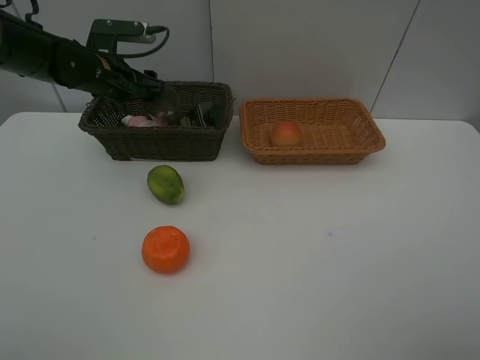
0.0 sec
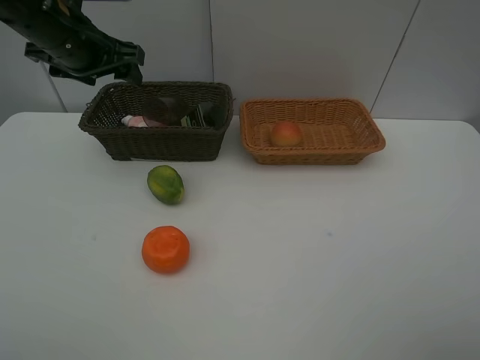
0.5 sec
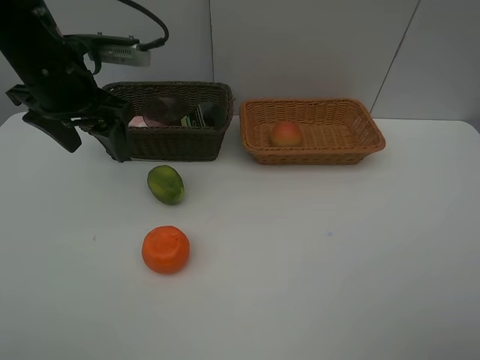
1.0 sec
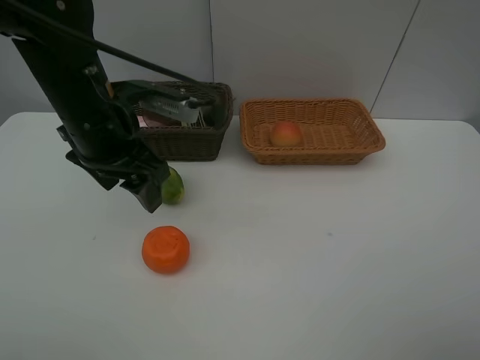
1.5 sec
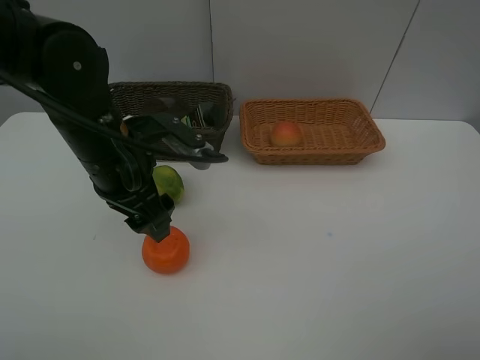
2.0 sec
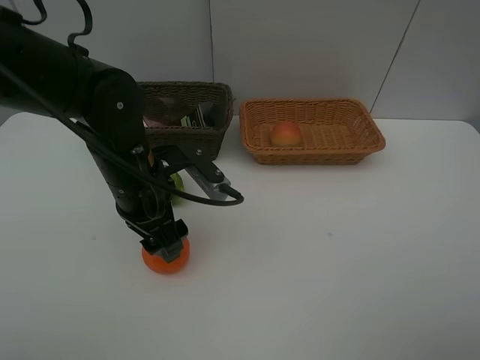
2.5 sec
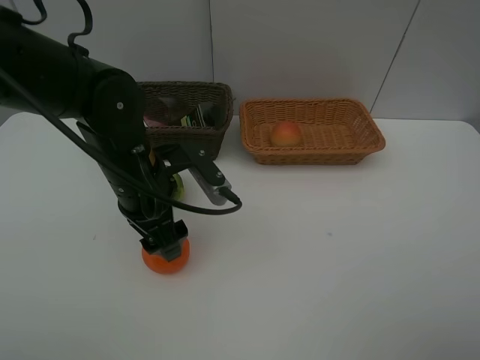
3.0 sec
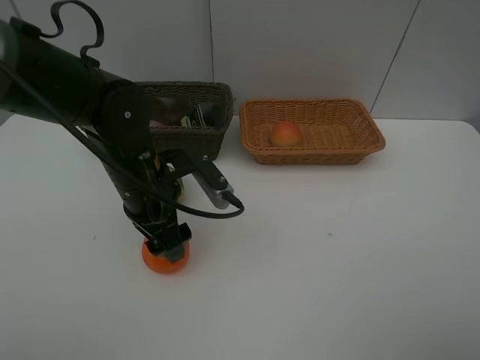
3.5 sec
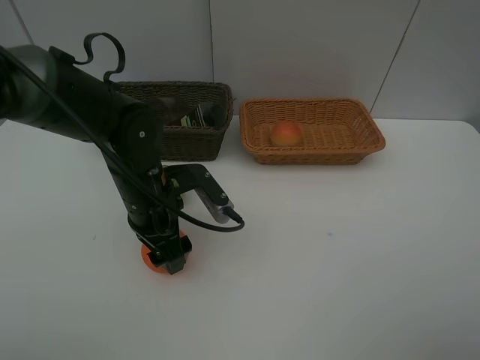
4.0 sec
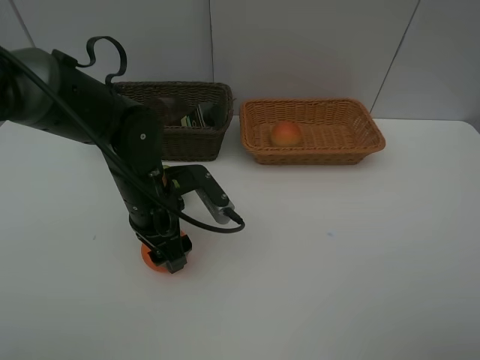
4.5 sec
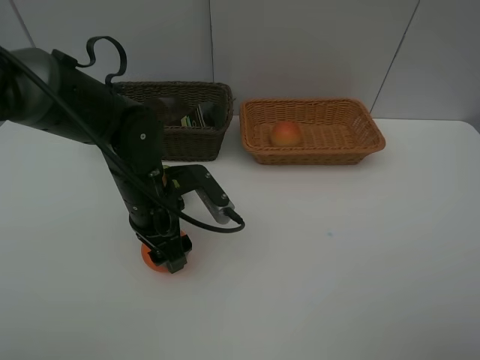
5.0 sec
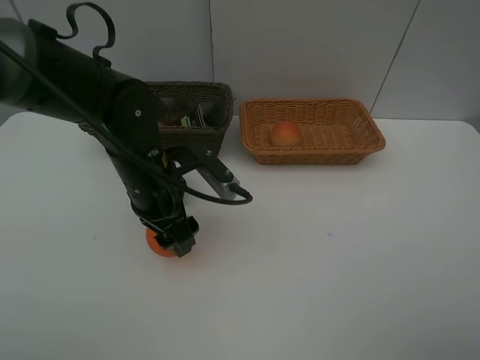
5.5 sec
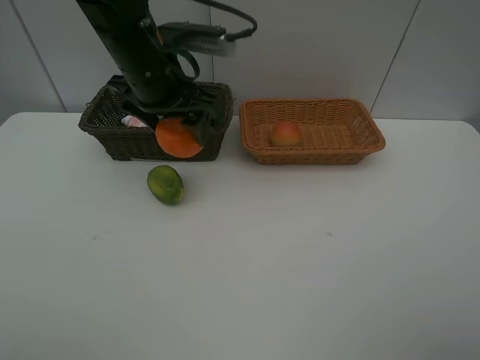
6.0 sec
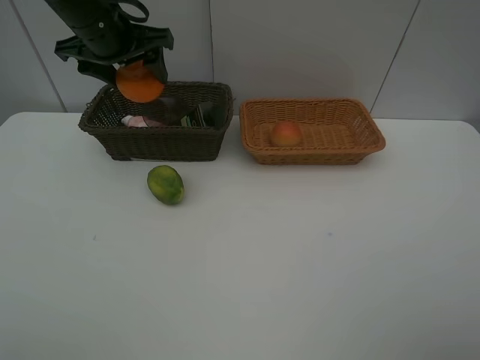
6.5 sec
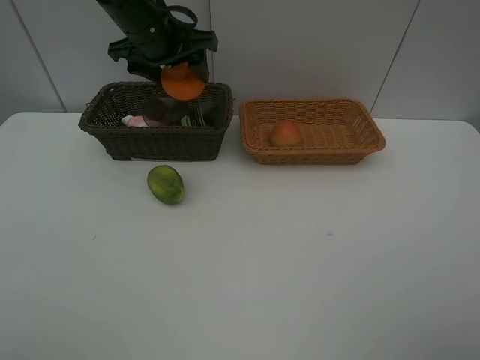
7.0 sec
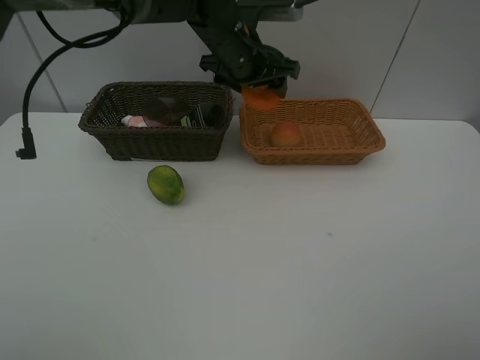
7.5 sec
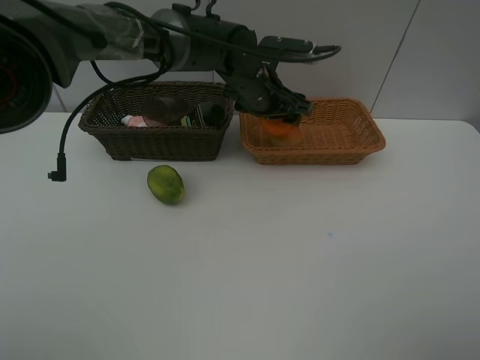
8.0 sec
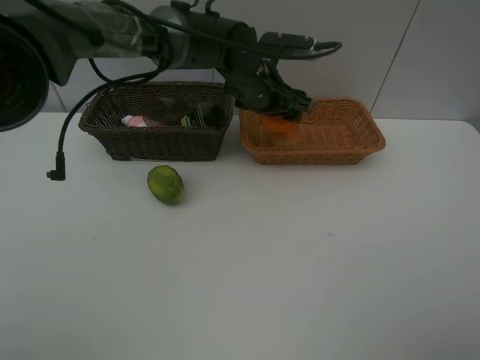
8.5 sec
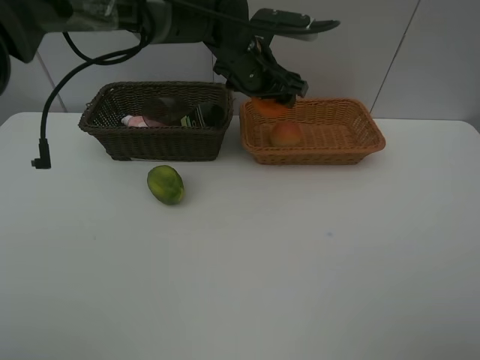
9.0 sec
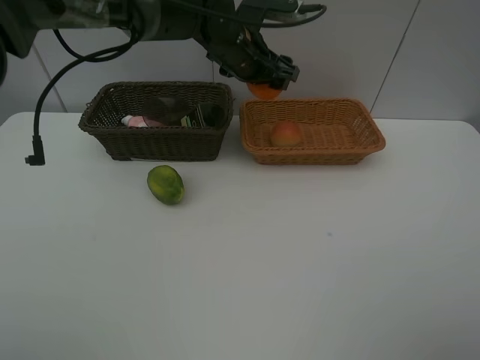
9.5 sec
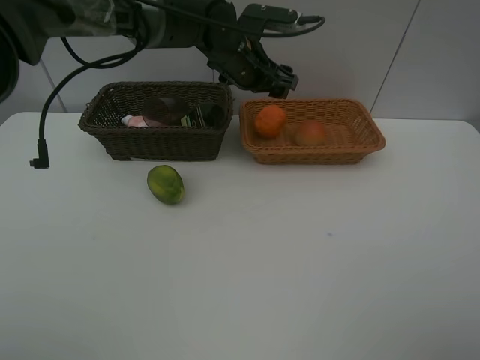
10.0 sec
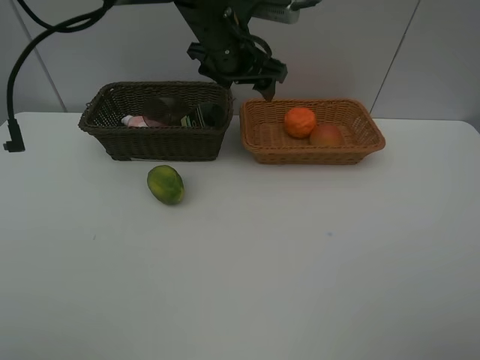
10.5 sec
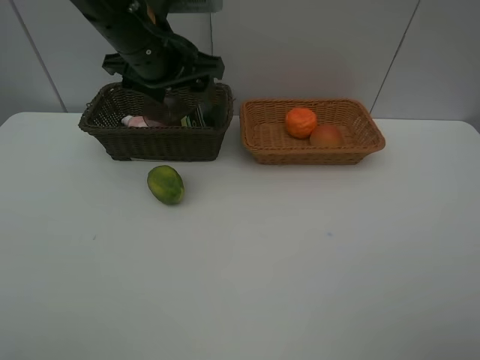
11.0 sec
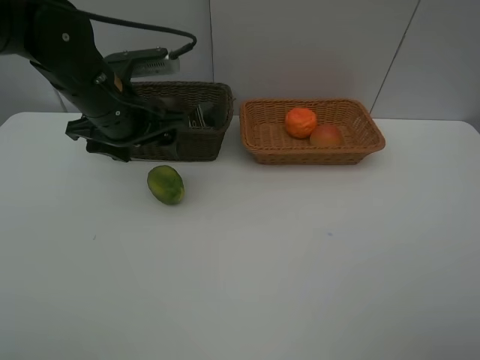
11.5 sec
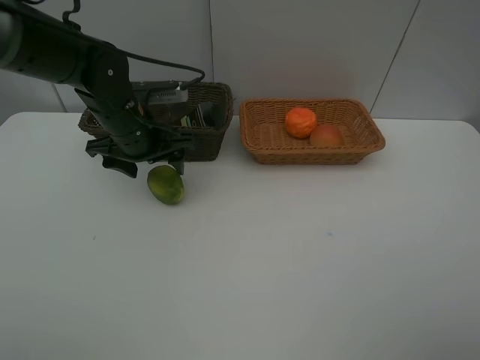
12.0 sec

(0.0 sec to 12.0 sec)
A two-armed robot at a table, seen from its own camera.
Task of the whole recording: place multiple objects separately in different baskets.
0.0 sec - 2.0 sec: The left gripper moves backward and to the right, roughly 20 cm.
2.0 sec - 4.0 sec: The left gripper moves downward, approximately 5 cm.
4.0 sec - 6.0 sec: The left gripper travels upward and forward by approximately 15 cm.
6.0 sec - 8.0 sec: The left gripper heads to the right, downward and forward, covering roughly 20 cm.
8.0 sec - 10.0 sec: The grippers move only a little.
10.0 sec - 12.0 sec: The left gripper travels to the left and backward by roughly 15 cm.

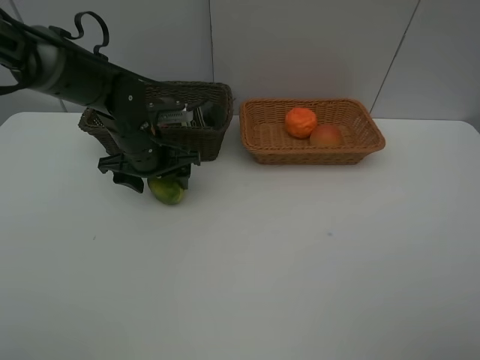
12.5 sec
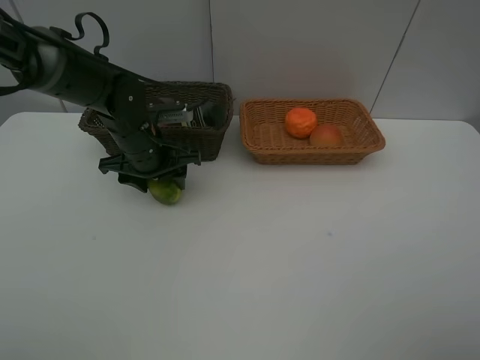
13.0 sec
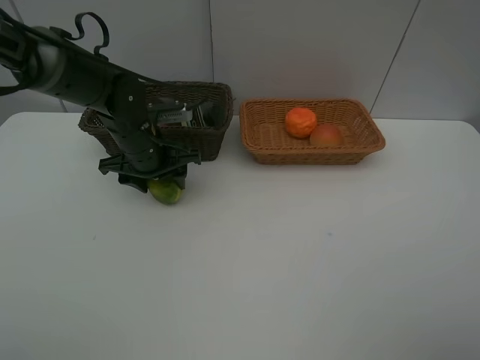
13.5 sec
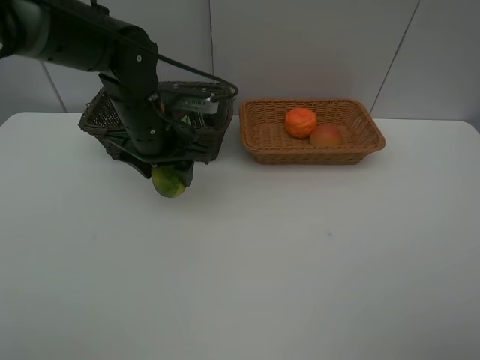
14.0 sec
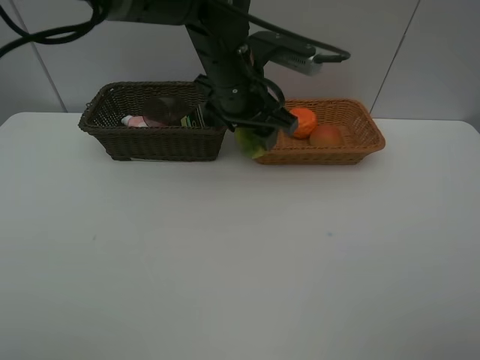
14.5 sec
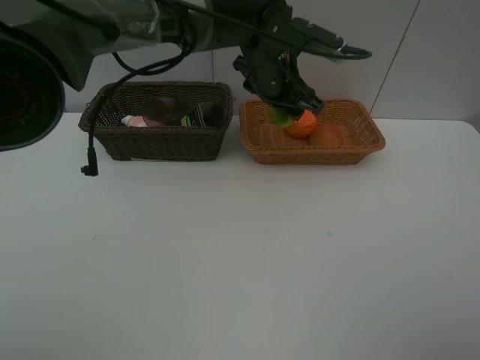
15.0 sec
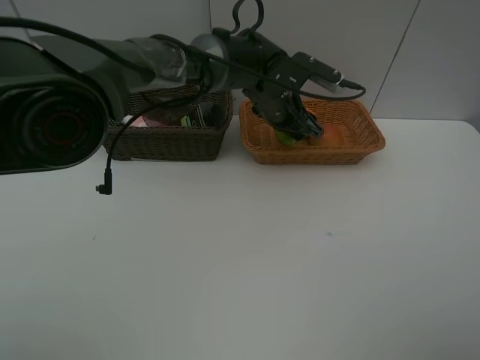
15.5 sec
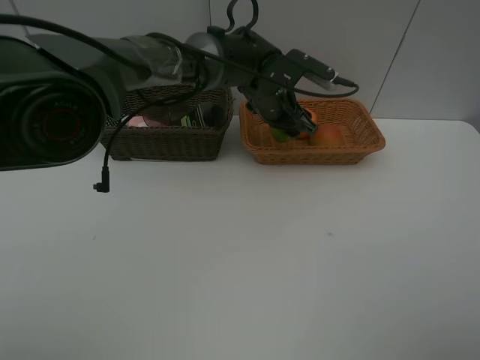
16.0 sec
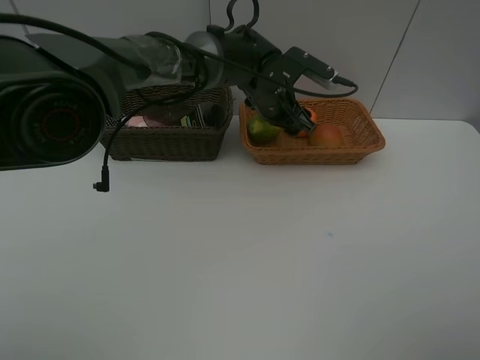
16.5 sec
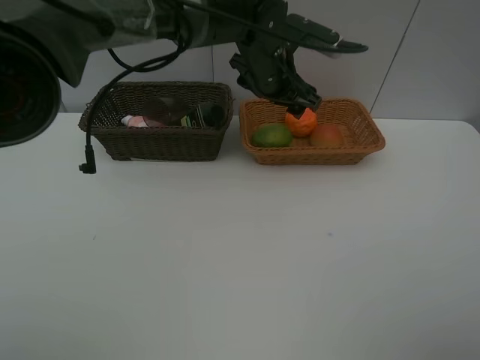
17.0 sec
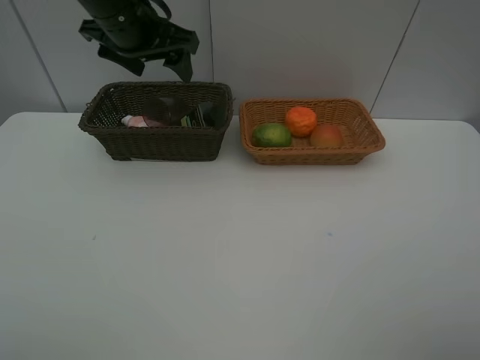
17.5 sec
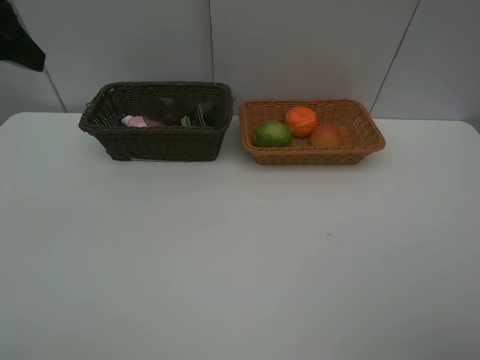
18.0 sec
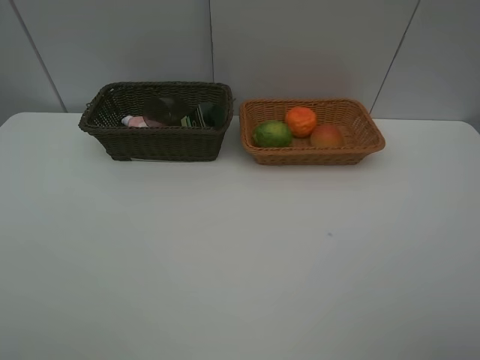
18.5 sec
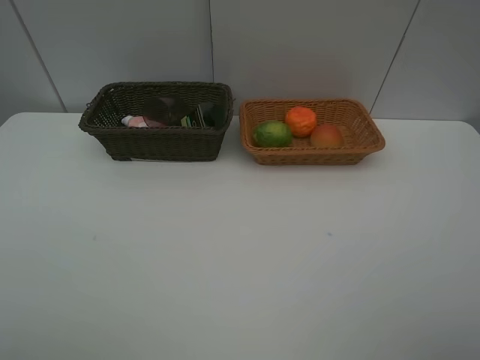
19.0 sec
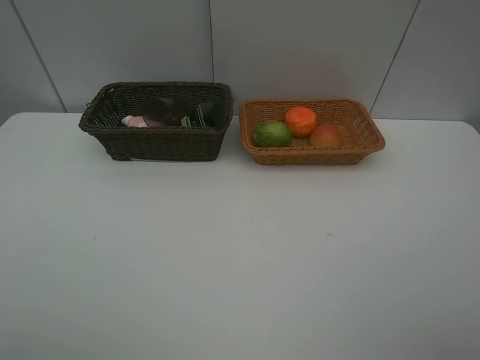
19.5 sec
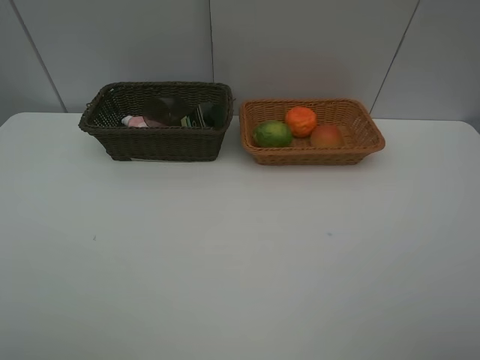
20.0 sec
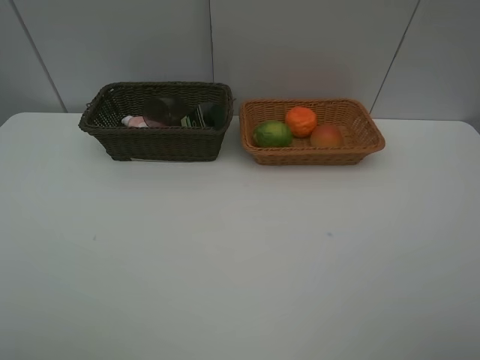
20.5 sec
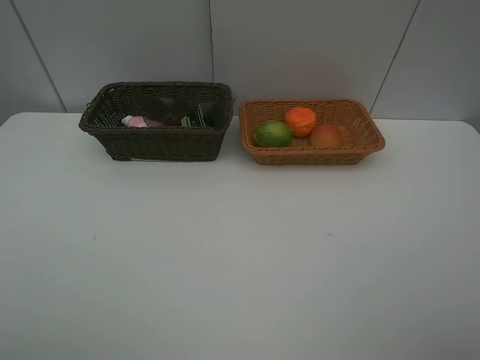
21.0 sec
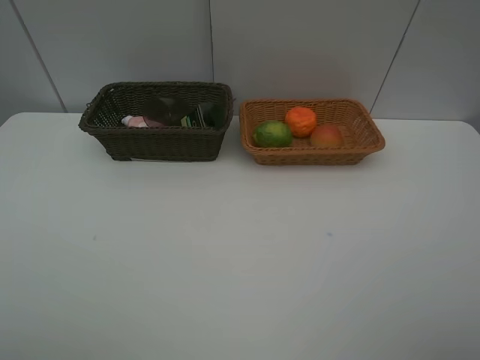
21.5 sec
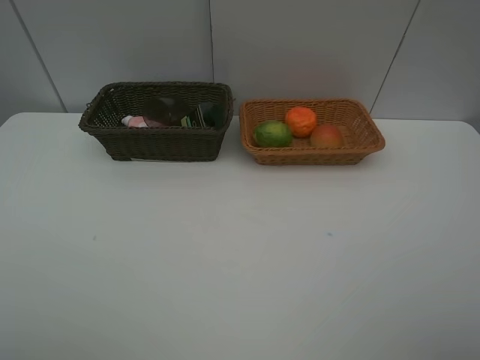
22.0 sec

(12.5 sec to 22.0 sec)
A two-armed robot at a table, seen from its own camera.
Task of the whole recording: place multiple objects separately in different baskets.
12.5 sec - 14.5 sec: The left gripper shifts approximately 20 cm to the right and upward.
14.5 sec - 16.5 sec: The left gripper is displaced forward and downward by roughly 10 cm.
16.5 sec - 18.0 sec: The left gripper heads to the left, backward and upward, covering about 40 cm.
18.0 sec - 20.0 sec: The left gripper shifts approximately 20 cm backward.
20.0 sec - 22.0 sec: Neither gripper changes place.
